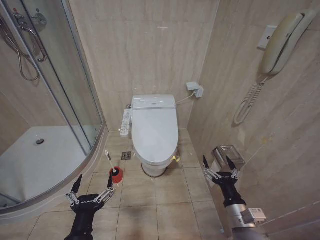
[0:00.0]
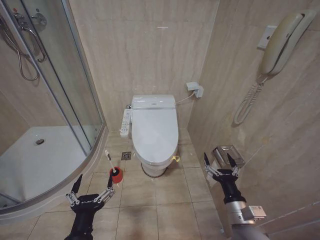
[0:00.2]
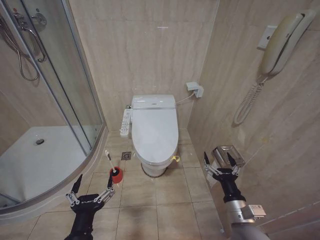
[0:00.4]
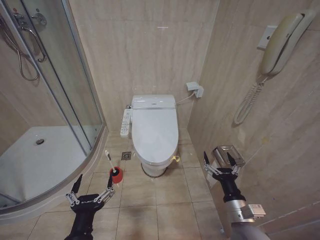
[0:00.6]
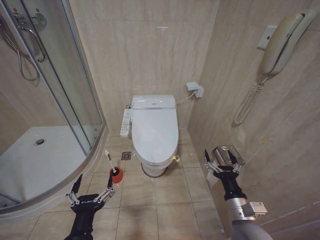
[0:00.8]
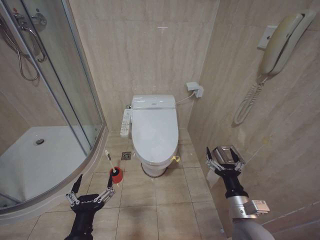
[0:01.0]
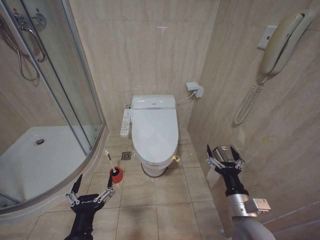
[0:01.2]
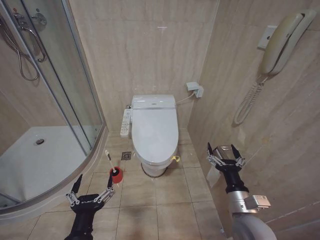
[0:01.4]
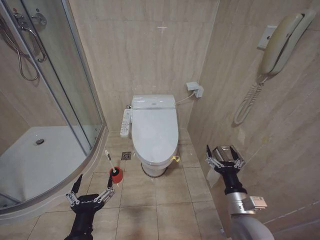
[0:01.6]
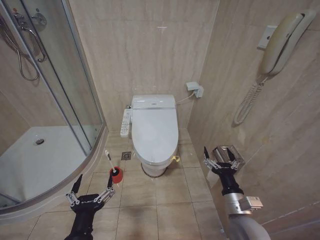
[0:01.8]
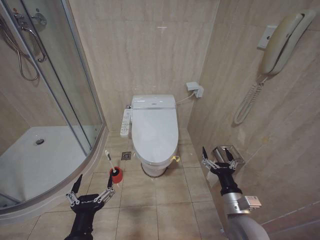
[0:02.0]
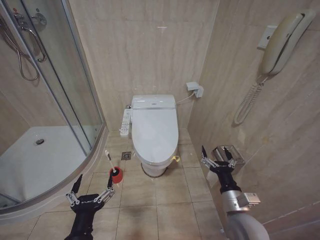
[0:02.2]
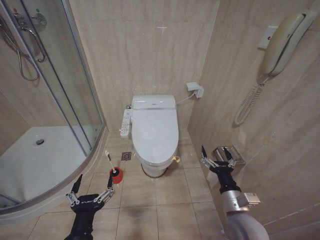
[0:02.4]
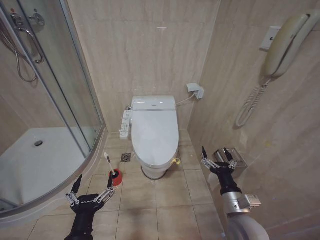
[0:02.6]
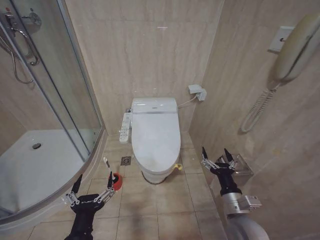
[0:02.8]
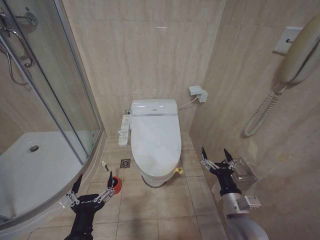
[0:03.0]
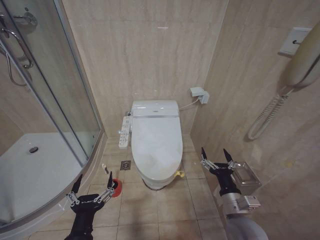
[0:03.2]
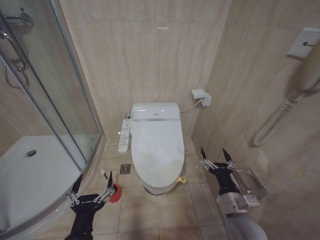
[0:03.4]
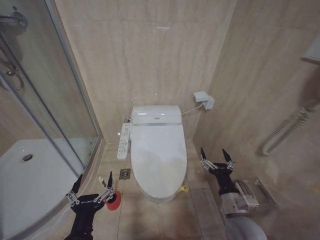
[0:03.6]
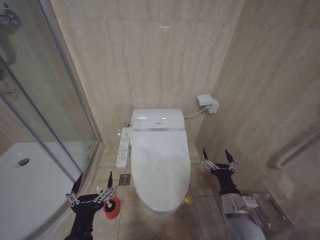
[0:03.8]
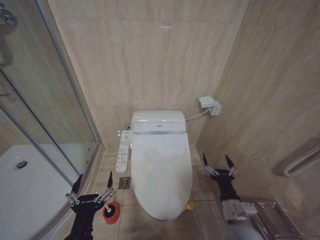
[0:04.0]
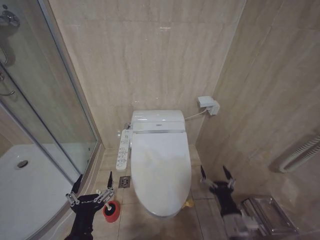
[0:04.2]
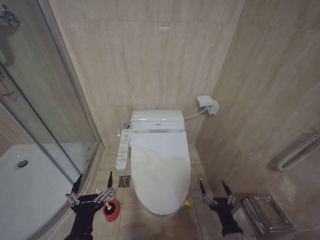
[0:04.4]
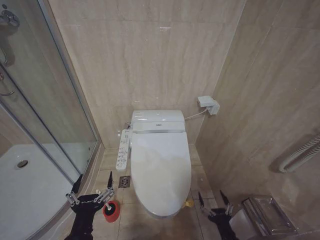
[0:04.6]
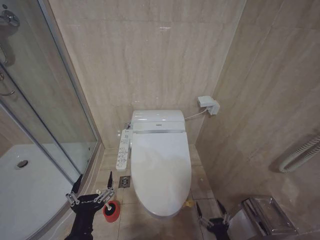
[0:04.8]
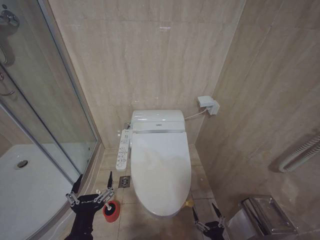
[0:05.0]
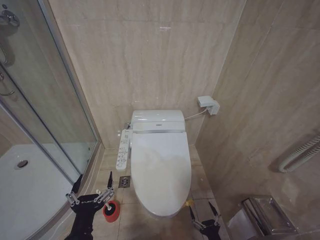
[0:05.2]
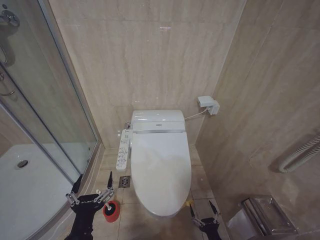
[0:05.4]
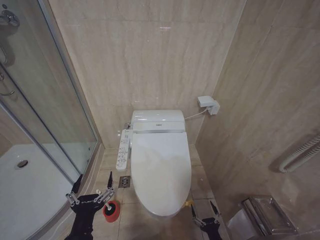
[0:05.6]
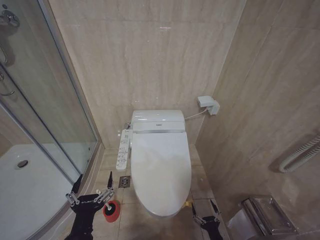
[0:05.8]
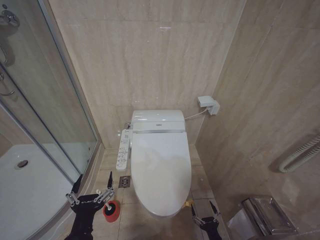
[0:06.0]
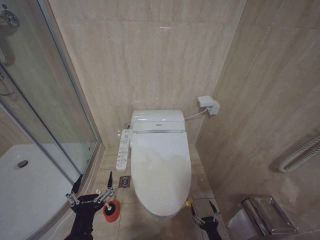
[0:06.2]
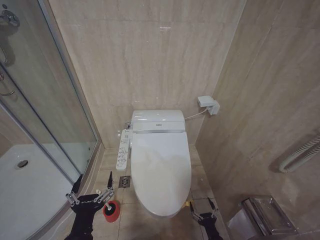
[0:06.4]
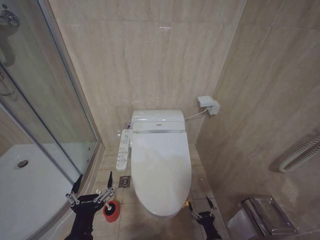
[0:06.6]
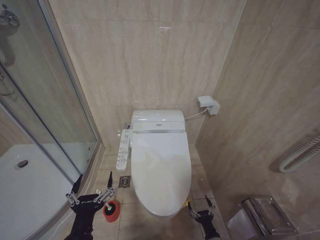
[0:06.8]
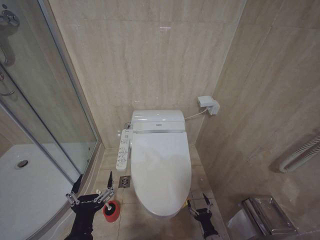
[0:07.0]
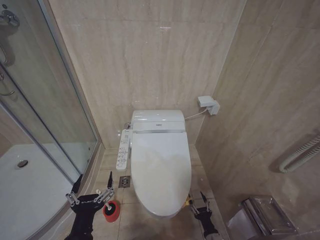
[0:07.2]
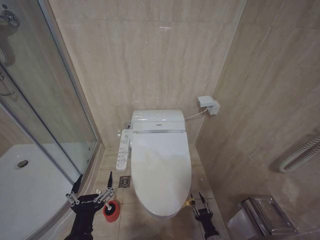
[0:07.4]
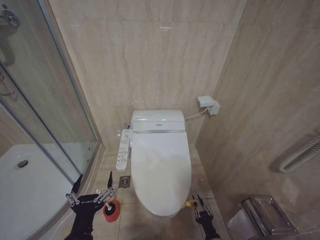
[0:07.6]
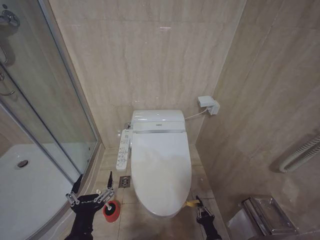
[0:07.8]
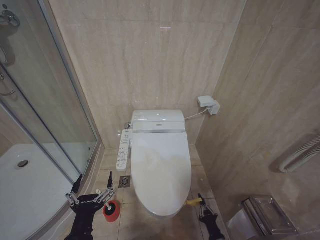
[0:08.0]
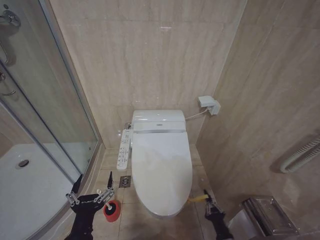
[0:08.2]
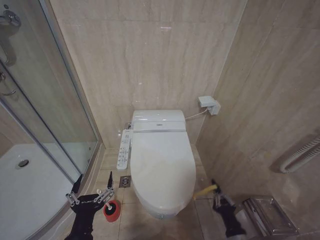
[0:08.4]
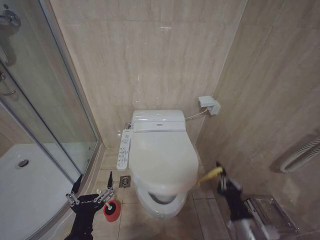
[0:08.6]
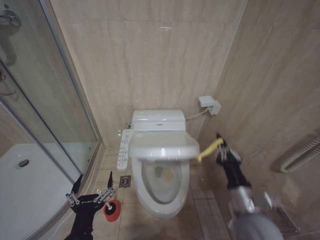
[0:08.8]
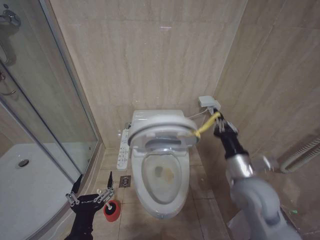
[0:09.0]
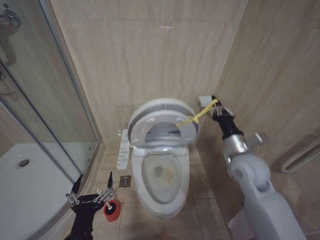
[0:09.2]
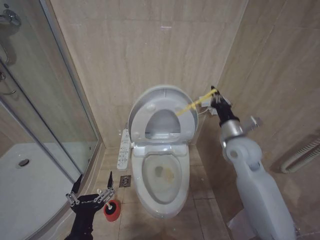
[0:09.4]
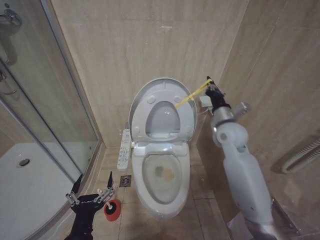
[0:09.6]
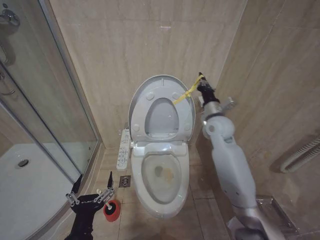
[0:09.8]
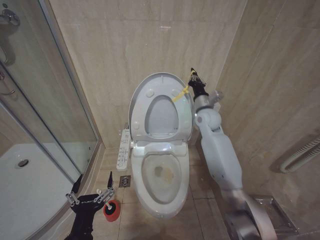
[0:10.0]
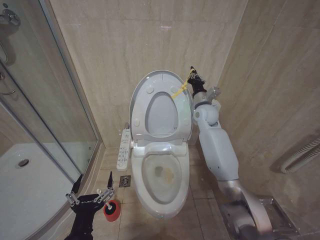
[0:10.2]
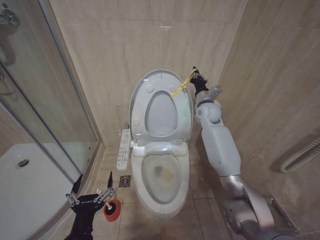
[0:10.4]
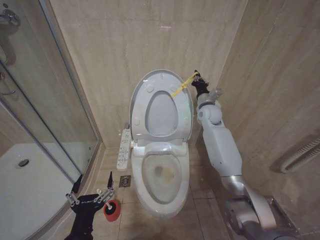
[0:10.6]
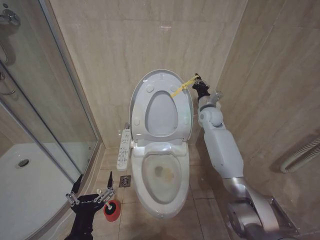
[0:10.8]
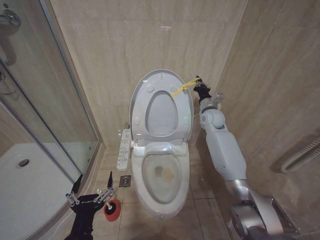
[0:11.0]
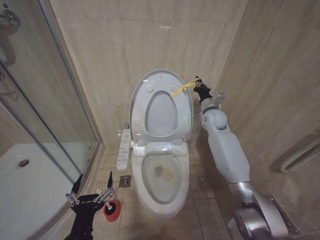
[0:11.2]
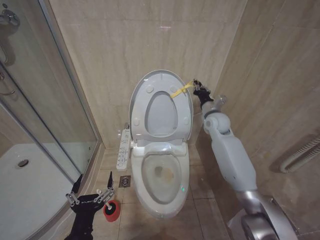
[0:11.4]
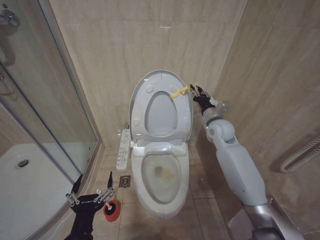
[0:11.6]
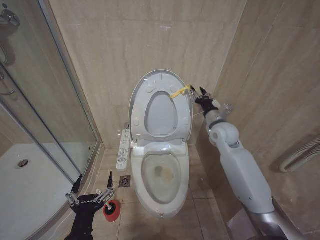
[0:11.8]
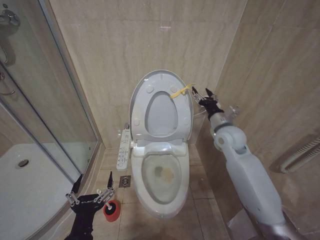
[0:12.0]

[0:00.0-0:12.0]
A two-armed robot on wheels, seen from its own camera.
Task of the whole recording: Open the toilet lid, clean the toilet bowl with a toilet brush, close the toilet lid, and flush.
0:01.6 to 0:03.0: Both grippers stay put.
0:03.0 to 0:04.4: The right gripper is displaced downward and backward by approximately 10 cm.
0:04.4 to 0:06.0: The right gripper moves downward, about 20 cm.
0:07.6 to 0:09.0: The right gripper shifts roughly 40 cm upward, and closes its fingers.
0:09.0 to 0:10.4: The right gripper shifts some 30 cm forward.
0:10.4 to 0:12.0: The right gripper moves backward, some 10 cm, and opens up.

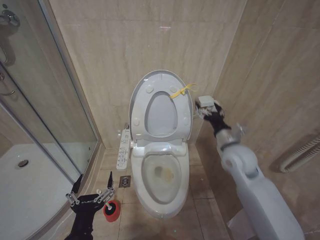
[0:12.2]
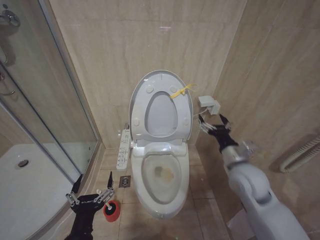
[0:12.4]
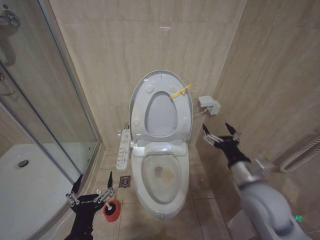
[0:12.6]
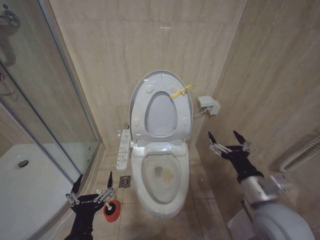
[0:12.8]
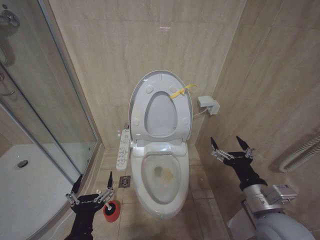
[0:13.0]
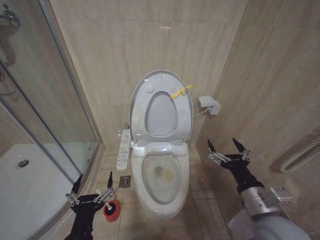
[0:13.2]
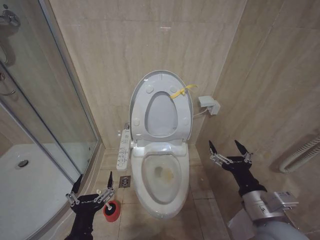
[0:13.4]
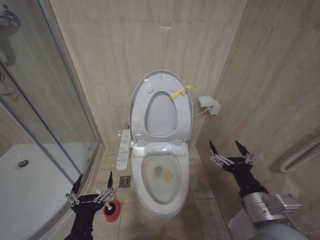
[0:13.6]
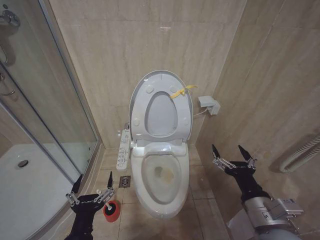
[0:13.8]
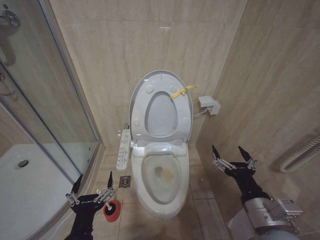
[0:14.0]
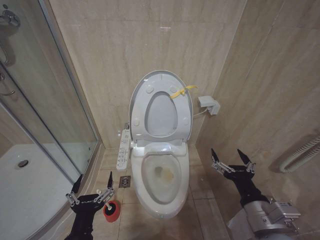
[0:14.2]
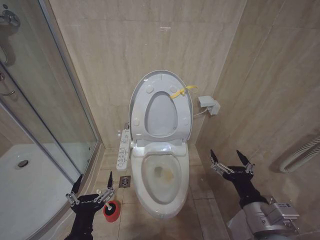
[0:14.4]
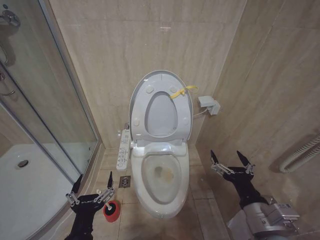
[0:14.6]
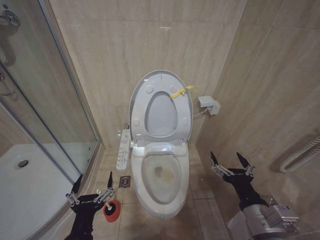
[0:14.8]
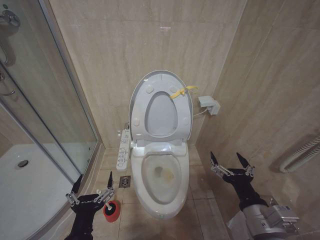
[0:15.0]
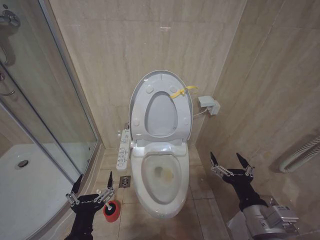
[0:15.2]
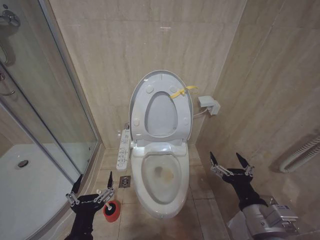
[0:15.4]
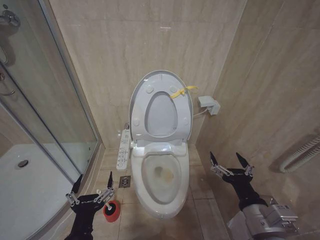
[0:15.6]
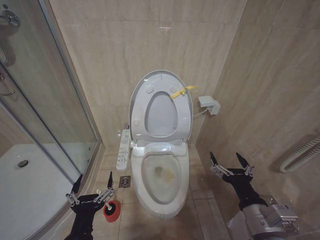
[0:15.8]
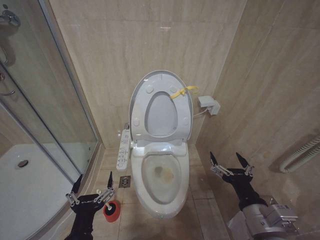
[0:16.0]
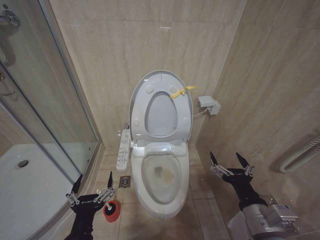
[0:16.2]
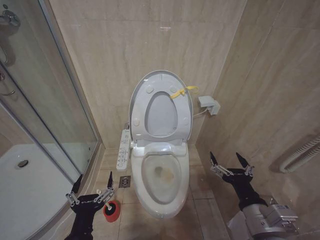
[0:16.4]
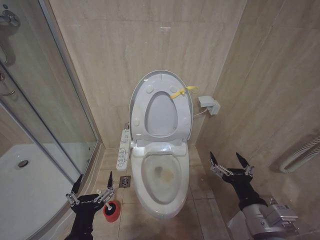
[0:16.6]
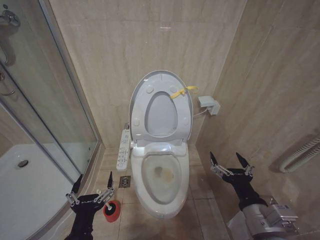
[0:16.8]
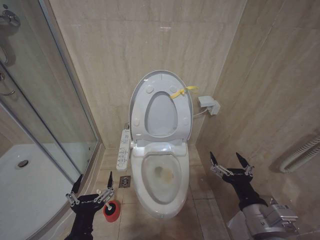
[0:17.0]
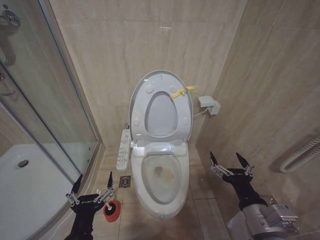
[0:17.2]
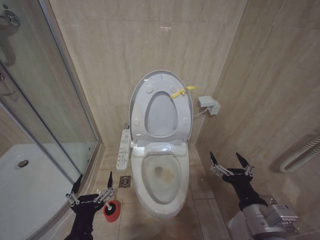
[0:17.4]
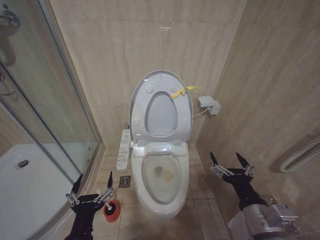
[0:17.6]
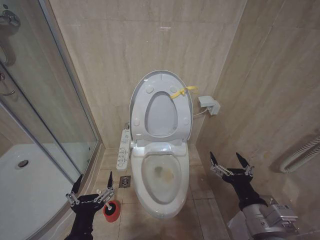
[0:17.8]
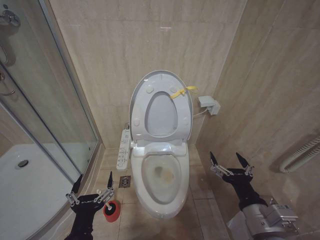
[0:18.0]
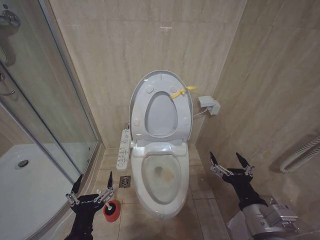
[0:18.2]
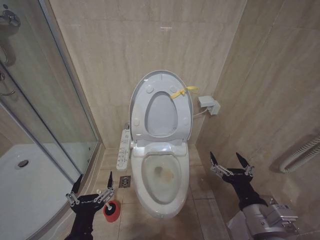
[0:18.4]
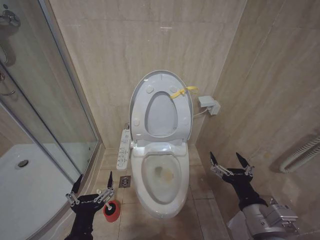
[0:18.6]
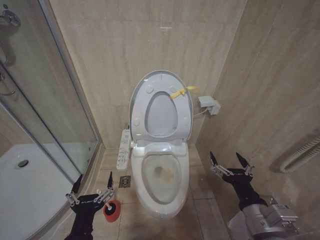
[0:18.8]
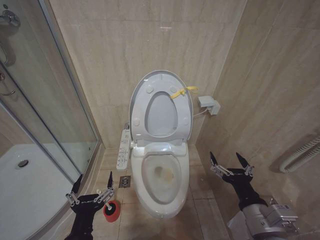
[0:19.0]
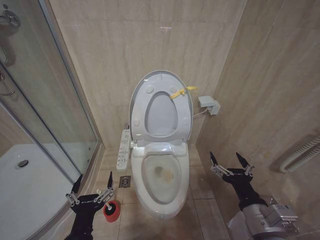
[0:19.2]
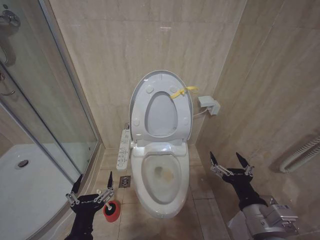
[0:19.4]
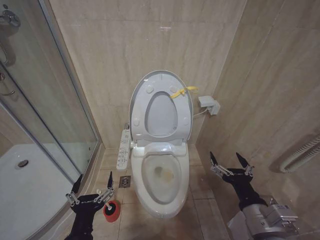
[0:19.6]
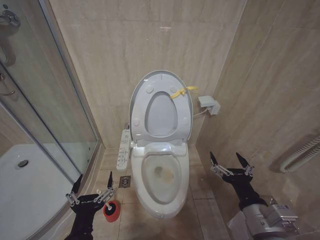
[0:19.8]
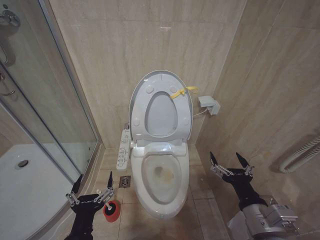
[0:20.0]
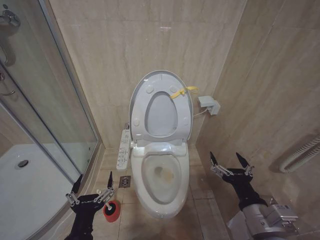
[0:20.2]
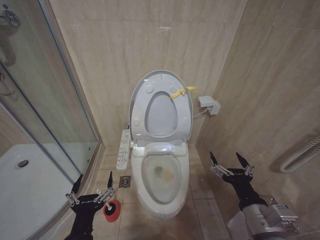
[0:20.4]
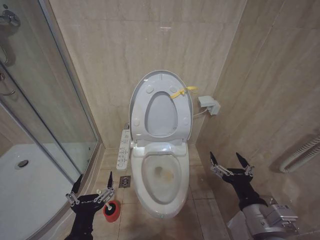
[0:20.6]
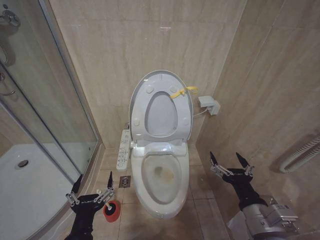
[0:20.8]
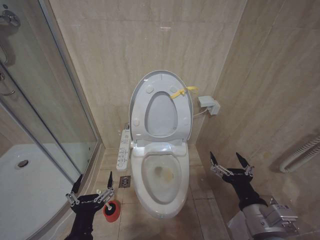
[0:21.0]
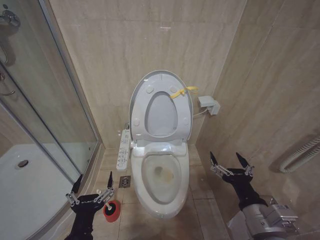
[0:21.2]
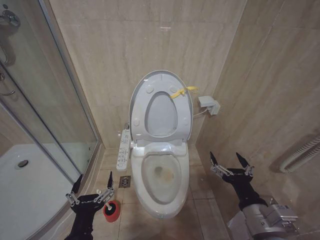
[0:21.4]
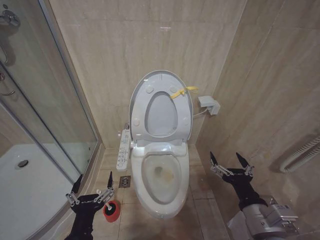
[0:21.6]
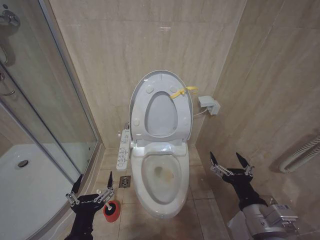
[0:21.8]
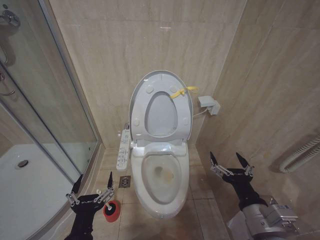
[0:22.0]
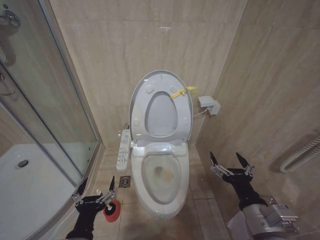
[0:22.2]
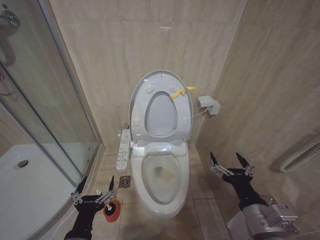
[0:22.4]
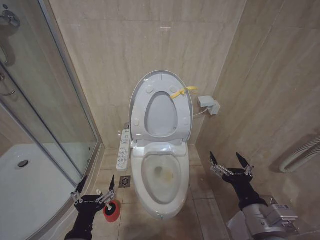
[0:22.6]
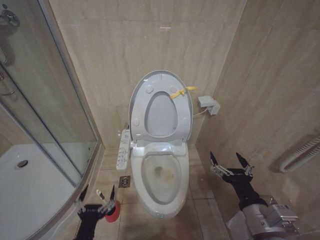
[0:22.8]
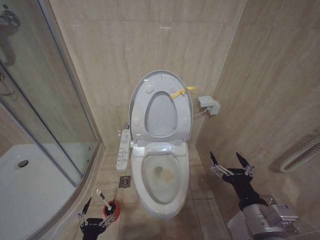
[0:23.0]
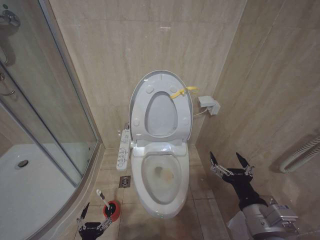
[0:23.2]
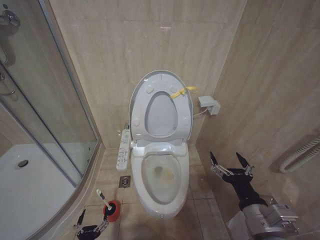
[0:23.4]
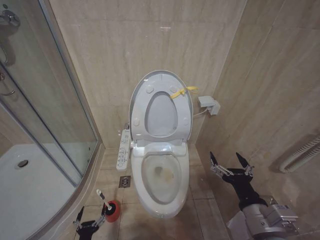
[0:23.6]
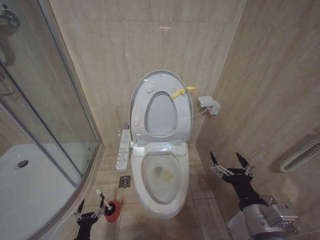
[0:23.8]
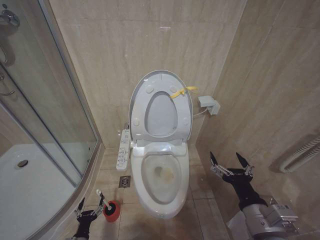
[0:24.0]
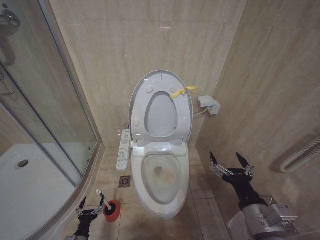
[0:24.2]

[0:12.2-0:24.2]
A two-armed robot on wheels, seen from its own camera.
Task of the whole recording: Open the toilet lid, clean the toilet bowl with a toilet brush, close the toilet lid, and flush.
0:12.2 to 0:13.8: The right gripper travels backward by about 25 cm.
0:13.8 to 0:15.2: The grippers move only a little.
0:15.2 to 0:21.2: Both grippers stay about where they are.
0:22.6 to 0:24.2: The left gripper travels downward by about 30 cm.
